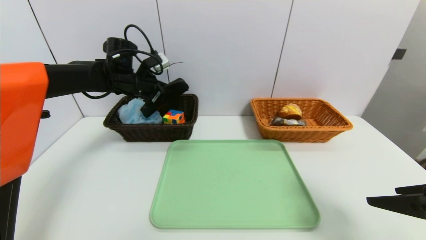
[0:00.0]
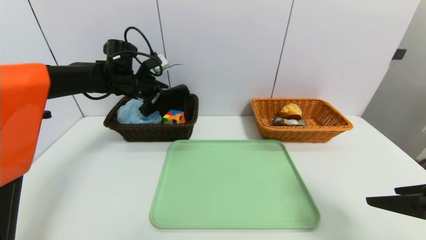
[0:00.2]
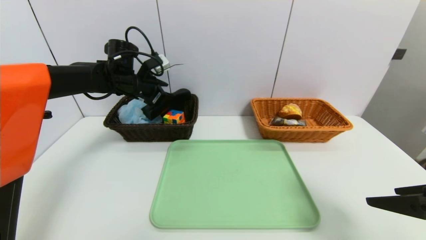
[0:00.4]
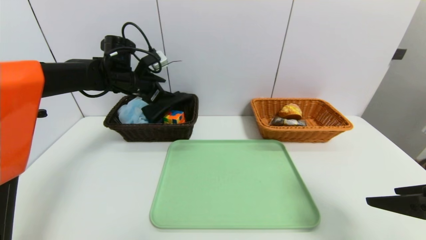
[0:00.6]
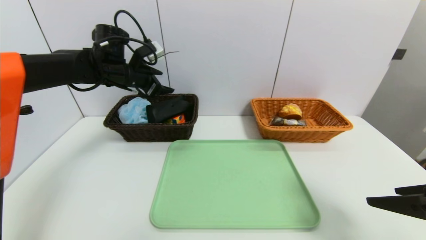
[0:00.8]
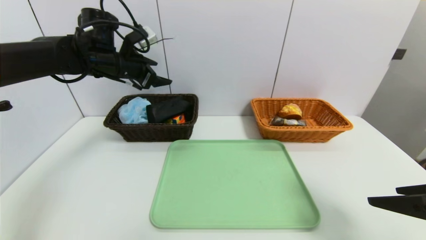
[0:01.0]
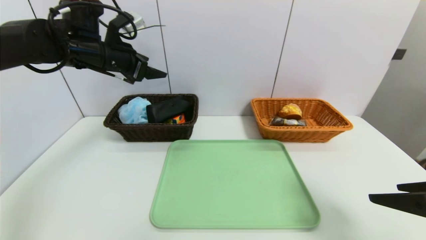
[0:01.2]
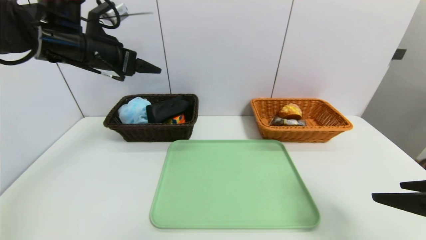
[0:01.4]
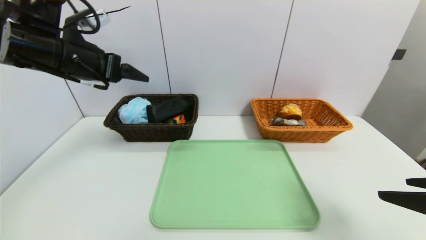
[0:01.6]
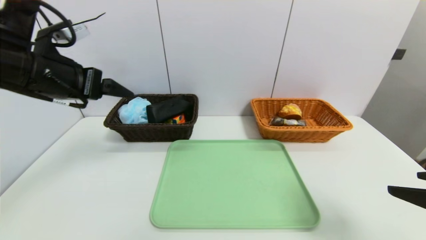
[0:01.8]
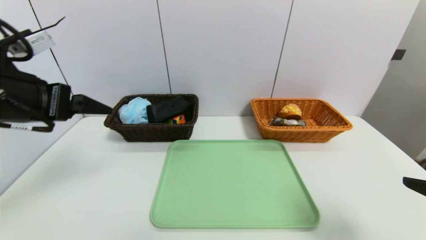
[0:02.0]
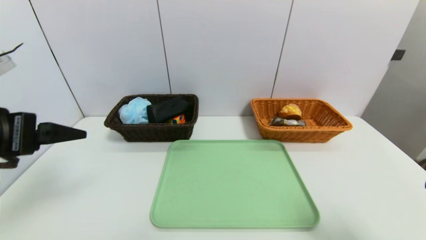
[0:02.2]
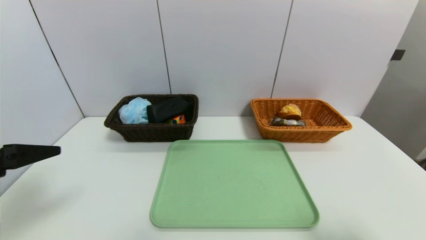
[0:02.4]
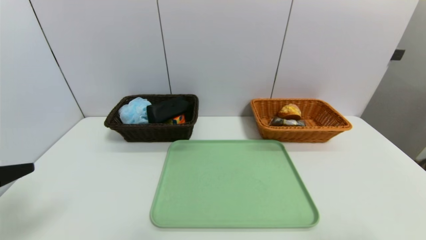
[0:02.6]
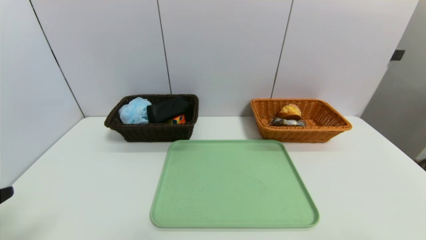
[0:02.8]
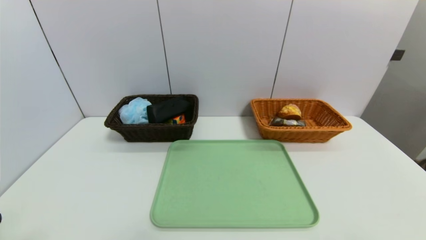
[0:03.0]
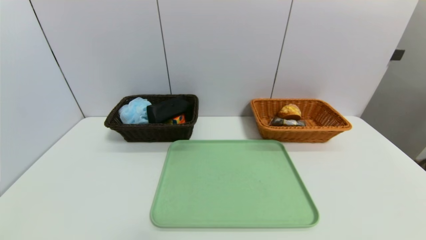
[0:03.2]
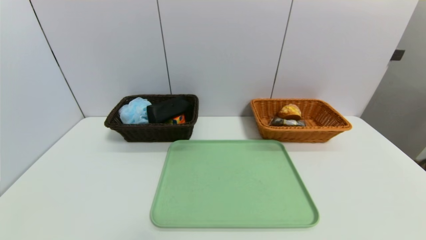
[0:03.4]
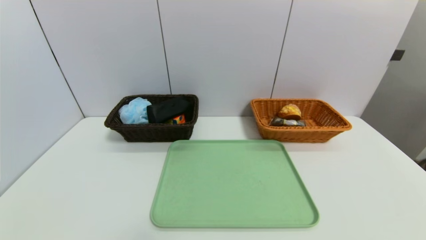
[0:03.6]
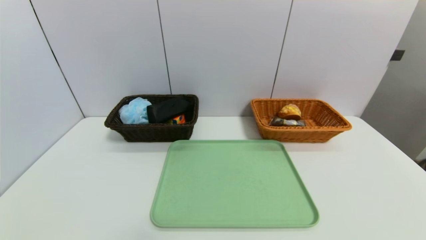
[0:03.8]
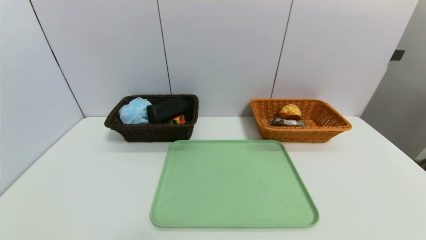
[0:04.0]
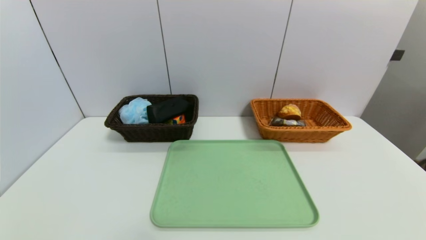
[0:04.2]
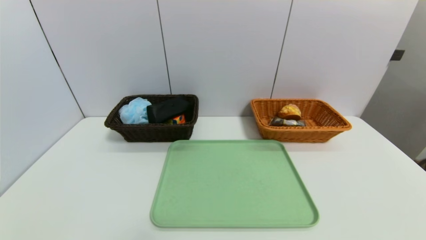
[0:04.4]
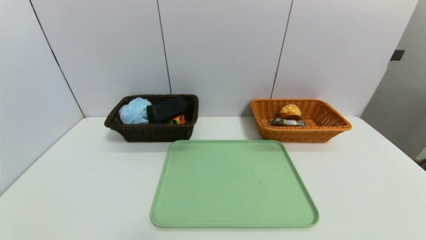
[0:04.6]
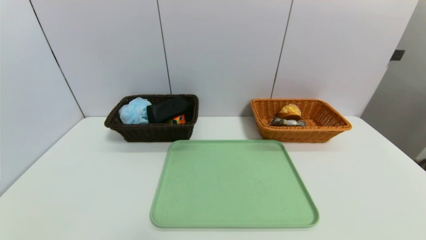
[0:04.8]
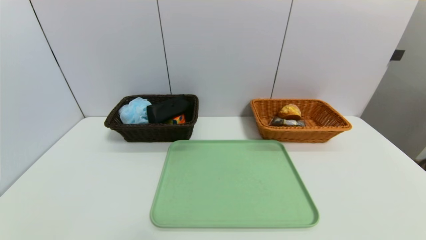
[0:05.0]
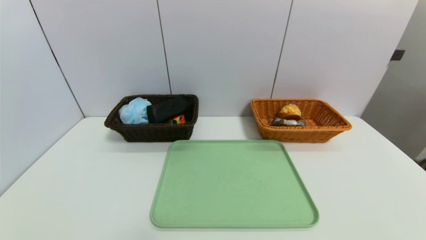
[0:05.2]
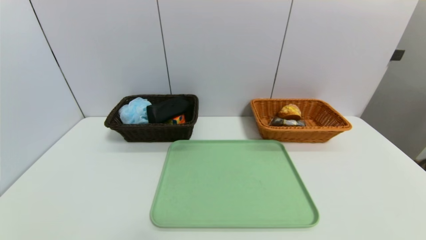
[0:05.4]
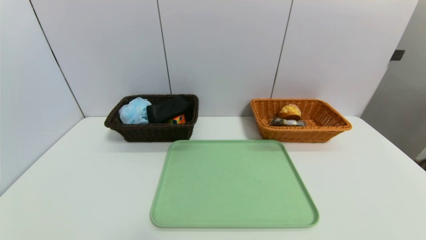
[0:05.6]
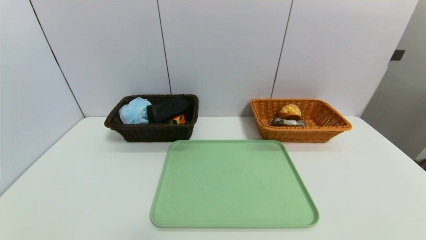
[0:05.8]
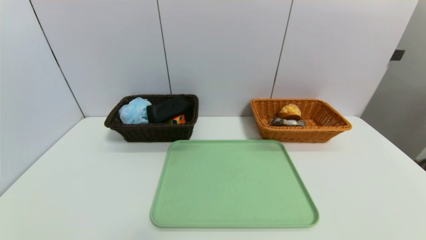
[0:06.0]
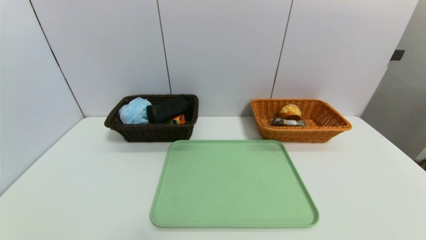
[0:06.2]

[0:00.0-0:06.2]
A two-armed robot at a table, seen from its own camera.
Task of the whole recording: place the food in the right basket with the right gripper, and place the non food items in the left basket with the left gripper.
0:00.0 to 0:01.6: The left gripper moves backward and upward, about 15 cm, and opens.
0:01.6 to 0:03.2: The left gripper heads backward, covering approximately 30 cm; the right gripper moves backward, approximately 15 cm.
